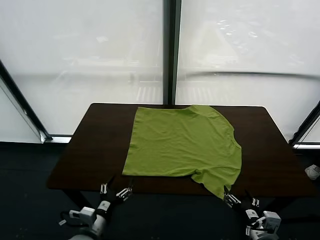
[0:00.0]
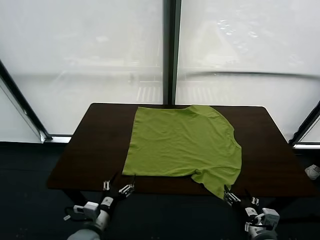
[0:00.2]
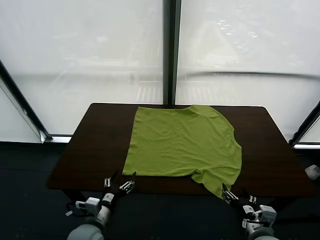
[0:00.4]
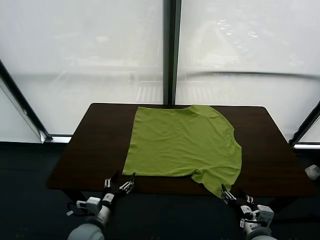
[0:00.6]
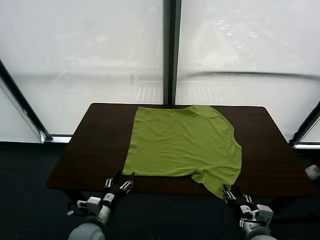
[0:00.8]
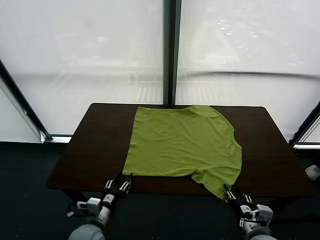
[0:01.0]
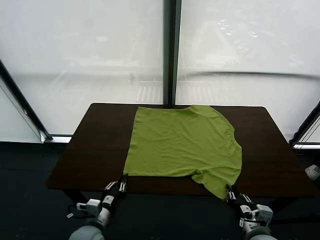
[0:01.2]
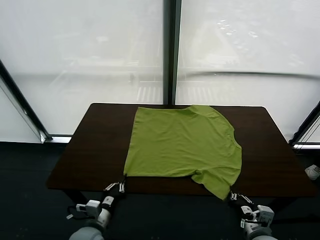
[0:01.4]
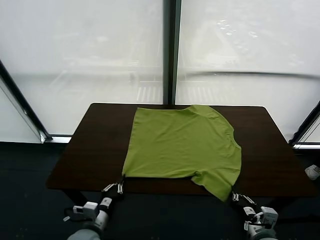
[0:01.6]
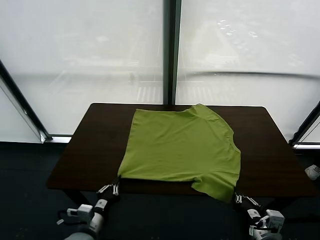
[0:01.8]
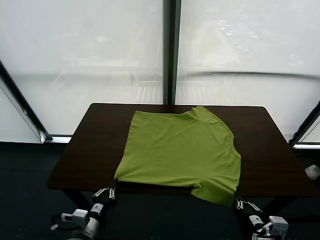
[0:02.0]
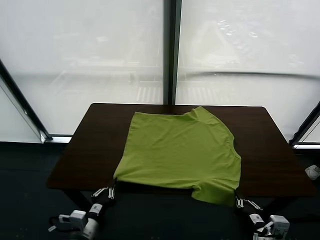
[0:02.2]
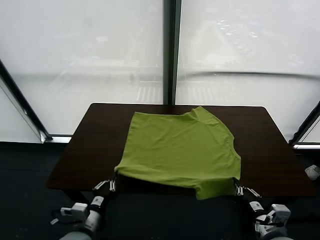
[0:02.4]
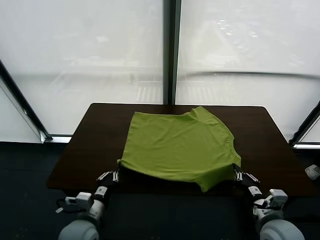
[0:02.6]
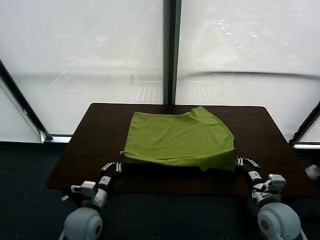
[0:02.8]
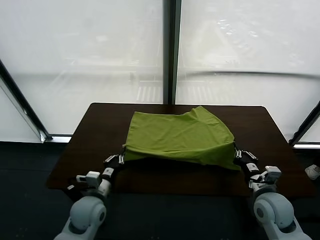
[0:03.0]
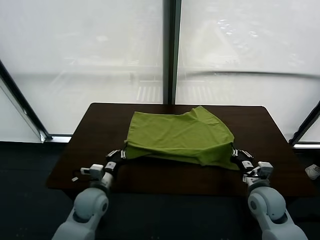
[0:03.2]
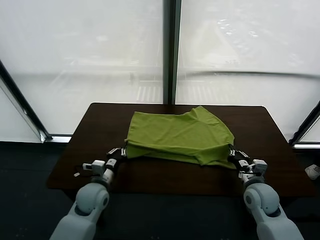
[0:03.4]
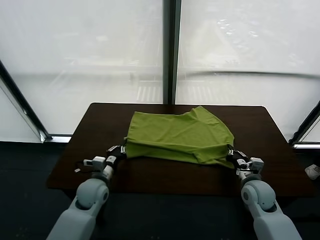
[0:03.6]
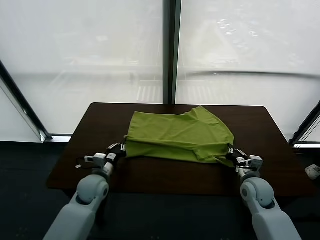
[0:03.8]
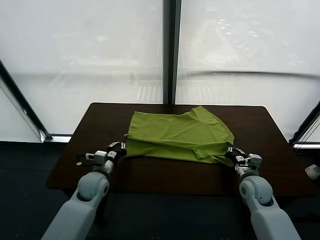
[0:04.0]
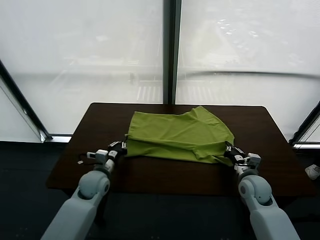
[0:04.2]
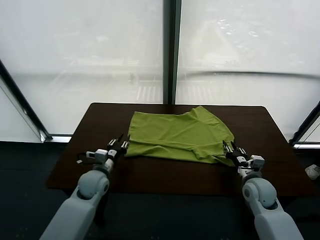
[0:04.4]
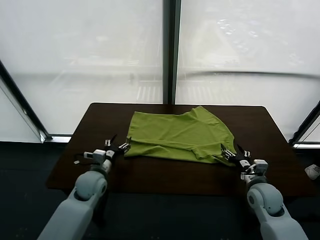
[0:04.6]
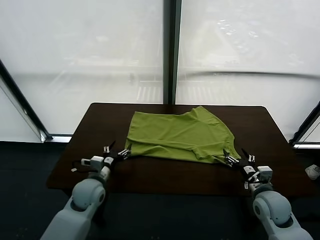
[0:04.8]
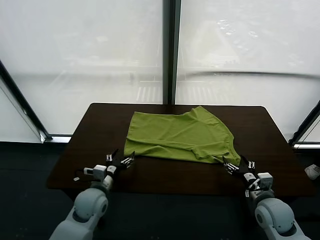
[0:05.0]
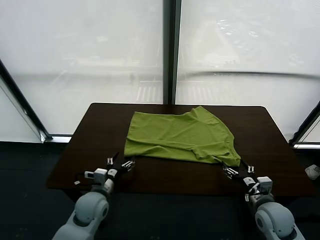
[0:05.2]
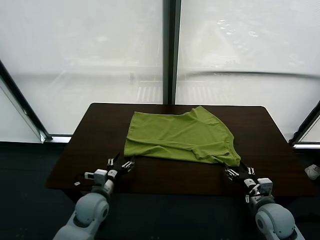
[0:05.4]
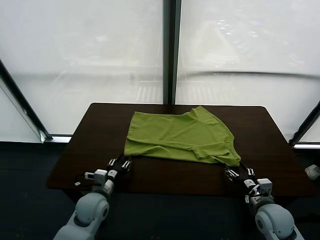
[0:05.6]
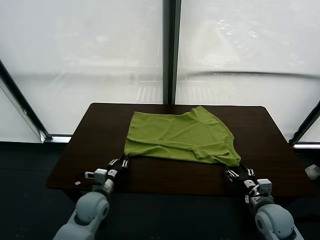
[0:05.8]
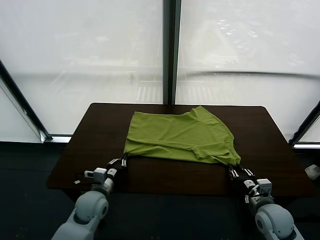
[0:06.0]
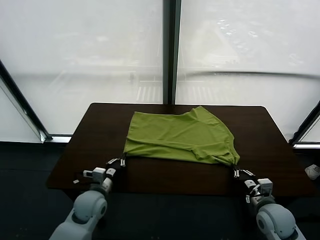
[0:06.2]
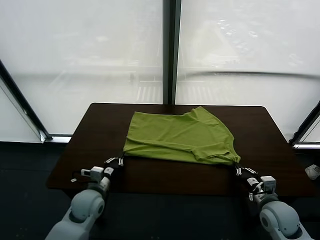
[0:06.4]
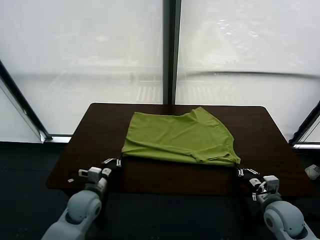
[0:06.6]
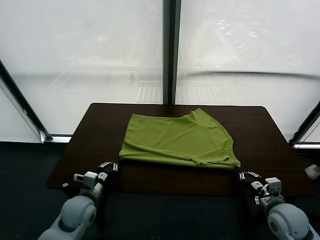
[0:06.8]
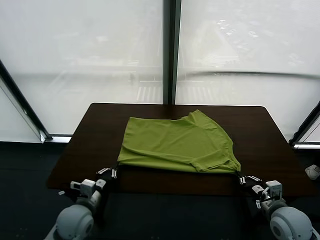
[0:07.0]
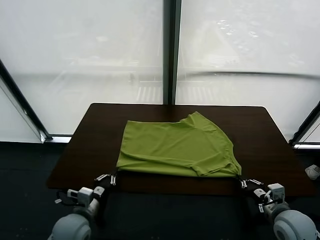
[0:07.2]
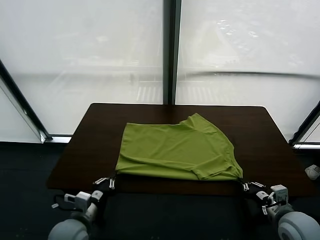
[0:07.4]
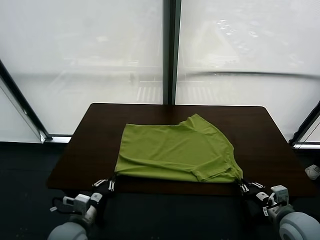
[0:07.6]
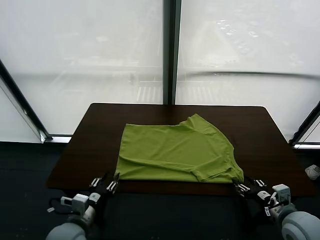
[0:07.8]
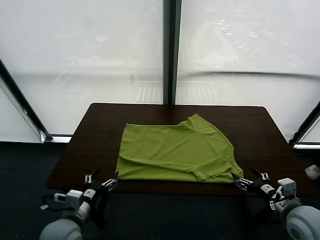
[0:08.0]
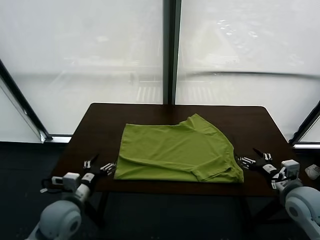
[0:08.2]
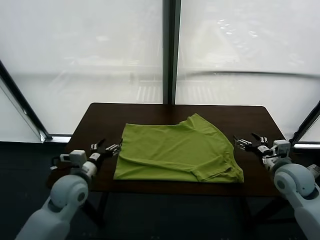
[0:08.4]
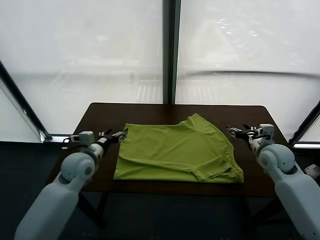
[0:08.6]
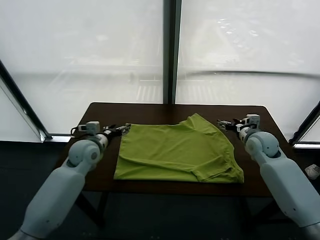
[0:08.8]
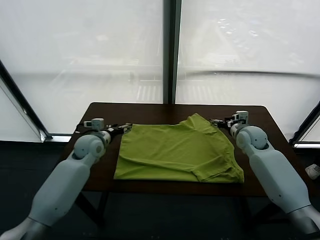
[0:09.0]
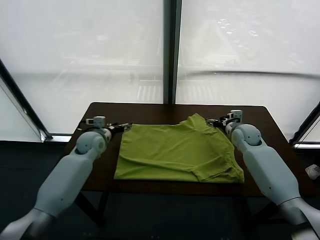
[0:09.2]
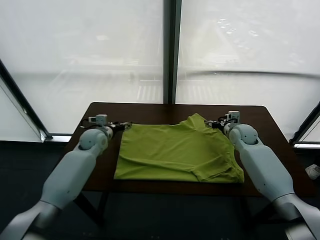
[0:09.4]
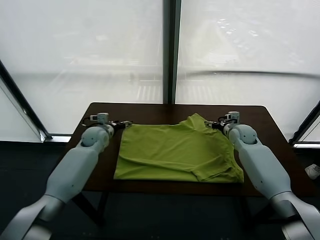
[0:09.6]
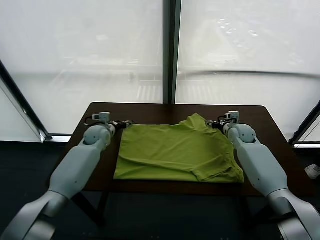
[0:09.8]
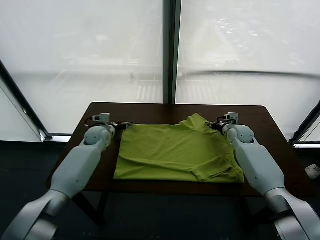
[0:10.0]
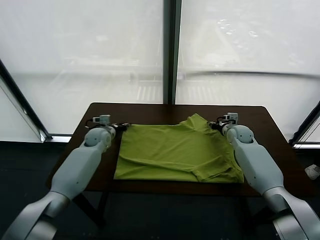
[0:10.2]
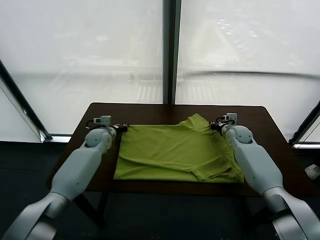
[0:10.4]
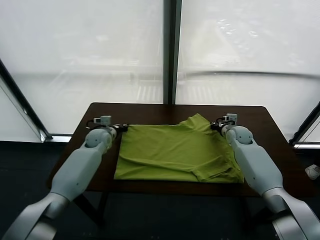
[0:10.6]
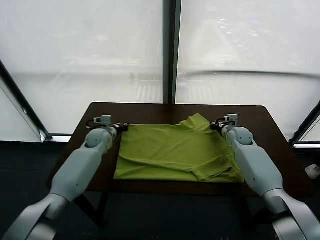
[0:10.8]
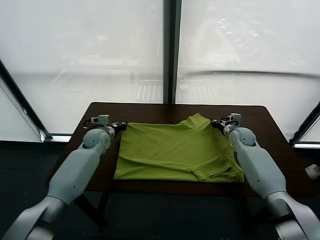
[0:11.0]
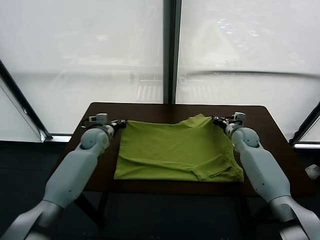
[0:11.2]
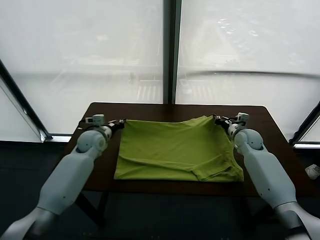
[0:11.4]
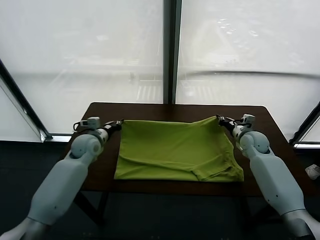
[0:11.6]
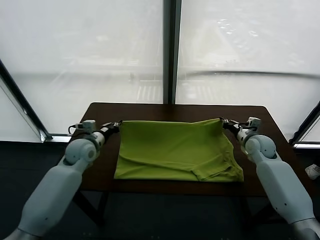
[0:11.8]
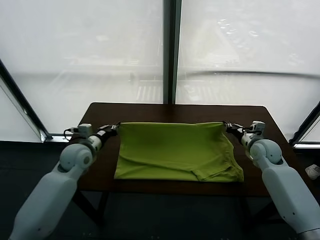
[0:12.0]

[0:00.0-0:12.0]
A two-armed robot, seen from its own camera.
Task of the whole recording: fold and organize the clothes.
Step, 0:00.0 to 0:01.6: use both grippers simultaneously to clamp the lower edge of the clothing fabric.
Step, 0:01.8 to 0:04.4: use both grippers to drag the lower edge of the fabric forward and fold it over the upper edge.
Step, 0:04.6 to 0:07.8: Drag the clothes downward with both gripper.
Step, 0:08.0 to 0:10.8: use both grippers simultaneously to clamp the upper edge of the clothing fabric.
0:01.6 to 0:03.0: The two grippers go some 10 cm forward.
0:03.0 to 0:04.4: The right gripper ends up approximately 5 cm from where it was, and opens. The left gripper shifts some 10 cm forward, and opens.
0:04.4 to 0:06.0: The grippers both shift backward by about 5 cm. The right gripper closes up; the left gripper closes up.
0:06.0 to 0:07.6: The left gripper travels backward by roughly 10 cm, while the right gripper shifts about 5 cm upward, and opens its fingers.
0:07.6 to 0:09.0: The two grippers go about 30 cm forward. The left gripper opens; the right gripper opens up.
0:09.0 to 0:10.4: The right gripper goes roughly 10 cm downward and forward, and closes up. The left gripper travels forward by roughly 5 cm, and closes.
0:10.4 to 0:12.0: The left gripper is displaced backward and upward by some 15 cm. The right gripper travels backward and to the right by roughly 10 cm.

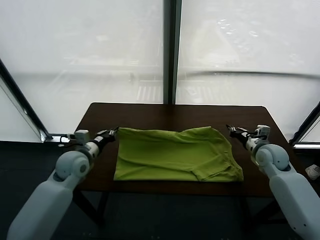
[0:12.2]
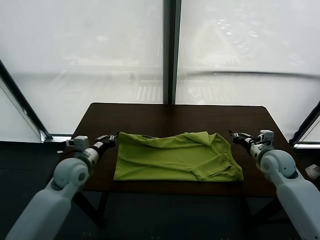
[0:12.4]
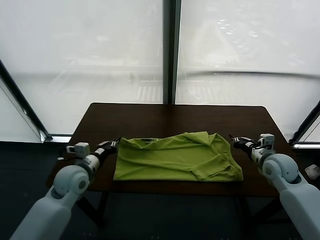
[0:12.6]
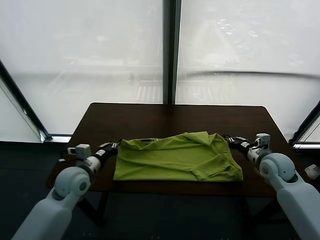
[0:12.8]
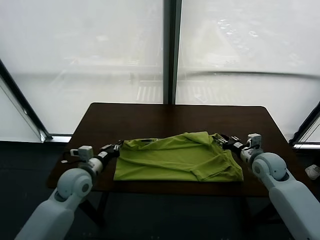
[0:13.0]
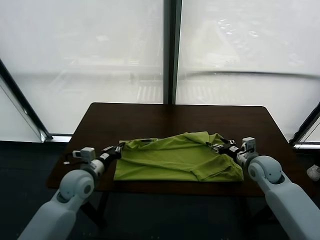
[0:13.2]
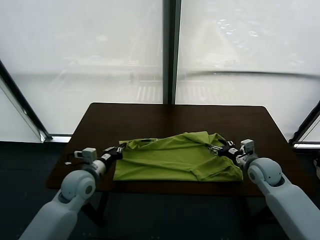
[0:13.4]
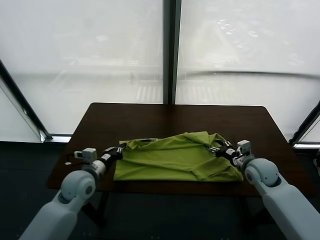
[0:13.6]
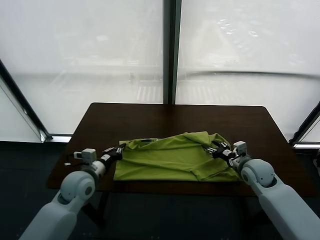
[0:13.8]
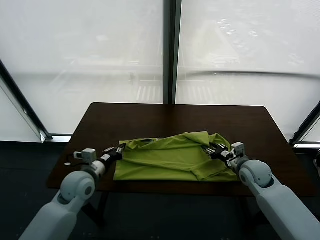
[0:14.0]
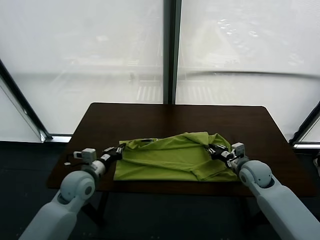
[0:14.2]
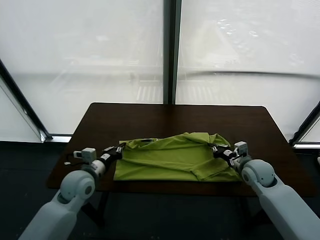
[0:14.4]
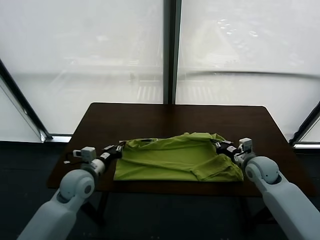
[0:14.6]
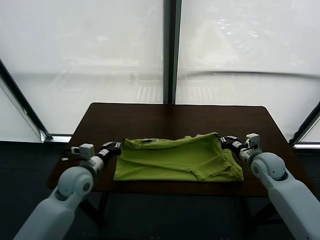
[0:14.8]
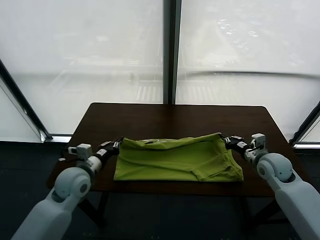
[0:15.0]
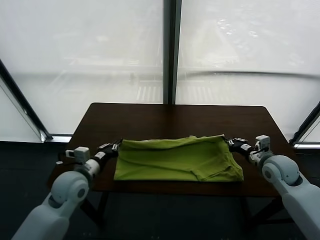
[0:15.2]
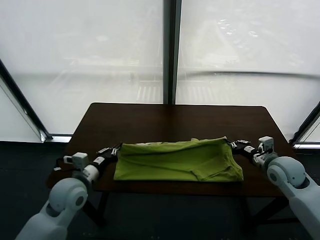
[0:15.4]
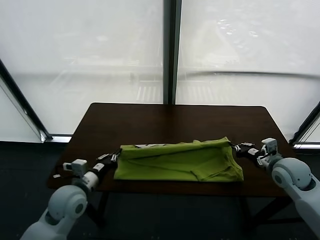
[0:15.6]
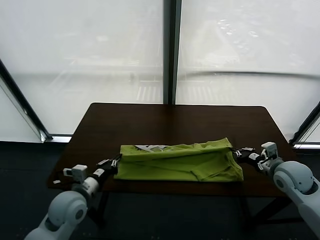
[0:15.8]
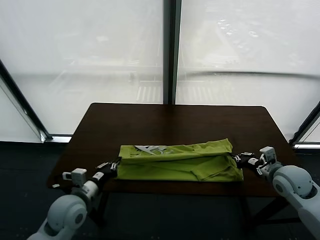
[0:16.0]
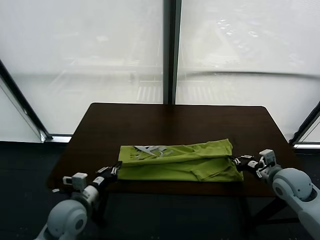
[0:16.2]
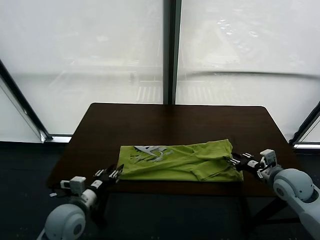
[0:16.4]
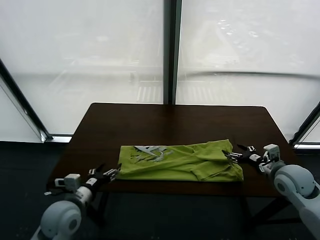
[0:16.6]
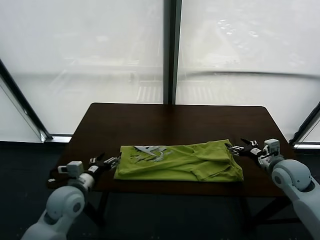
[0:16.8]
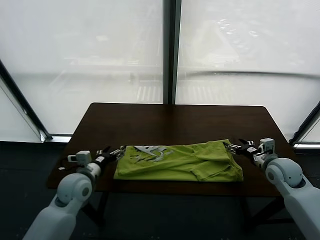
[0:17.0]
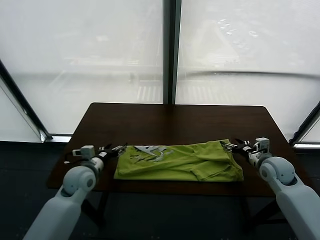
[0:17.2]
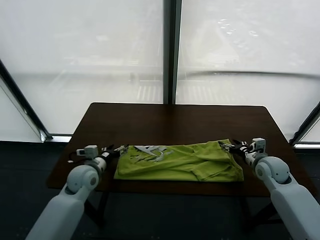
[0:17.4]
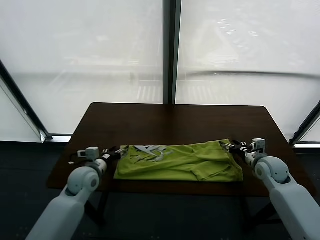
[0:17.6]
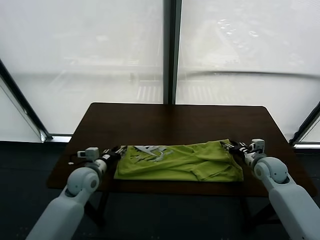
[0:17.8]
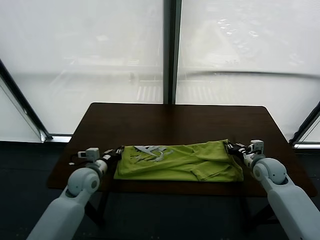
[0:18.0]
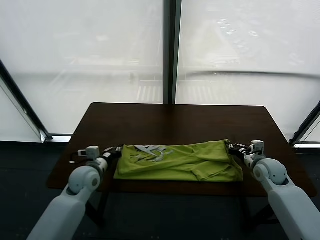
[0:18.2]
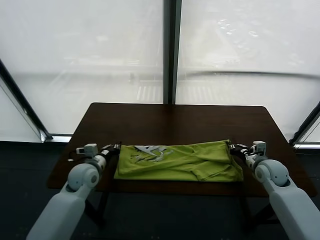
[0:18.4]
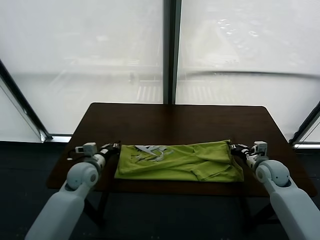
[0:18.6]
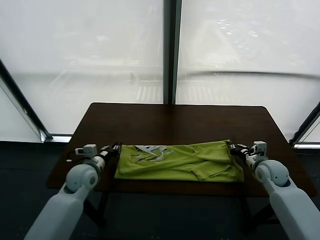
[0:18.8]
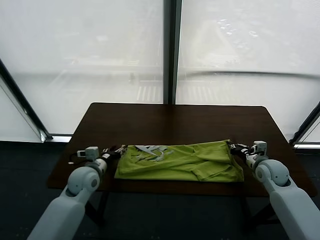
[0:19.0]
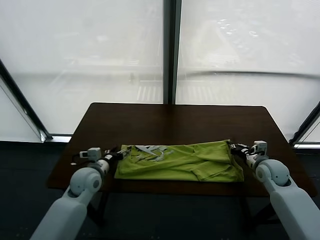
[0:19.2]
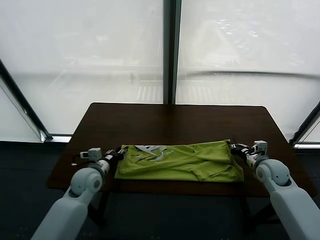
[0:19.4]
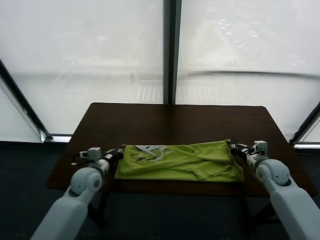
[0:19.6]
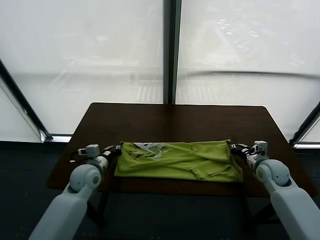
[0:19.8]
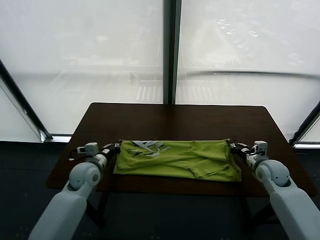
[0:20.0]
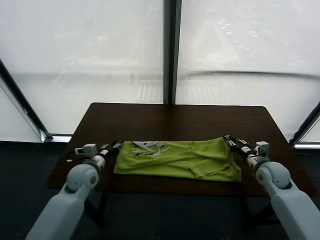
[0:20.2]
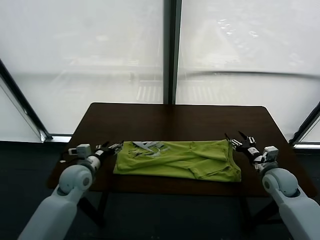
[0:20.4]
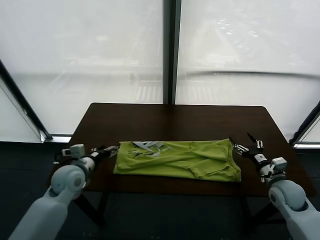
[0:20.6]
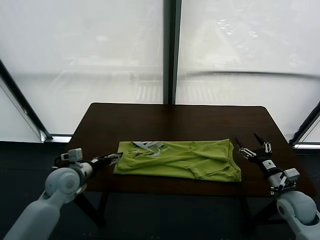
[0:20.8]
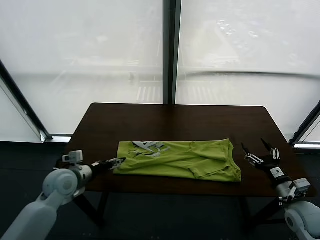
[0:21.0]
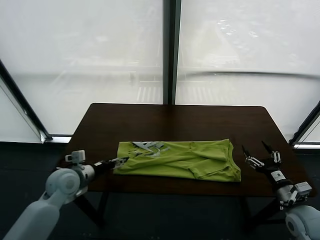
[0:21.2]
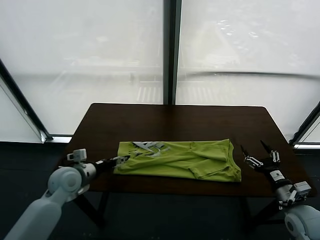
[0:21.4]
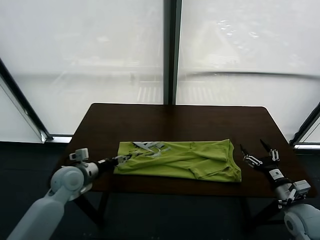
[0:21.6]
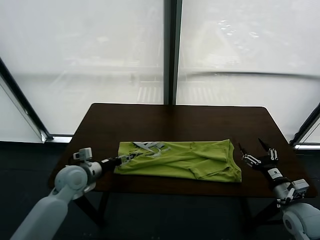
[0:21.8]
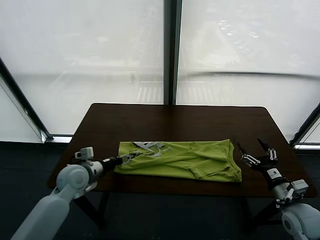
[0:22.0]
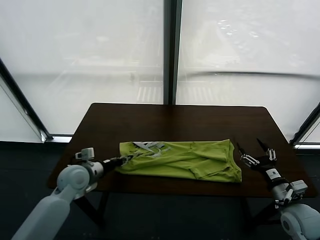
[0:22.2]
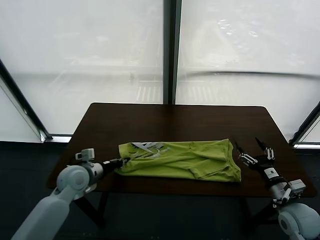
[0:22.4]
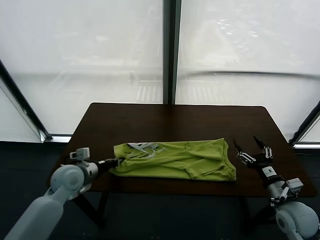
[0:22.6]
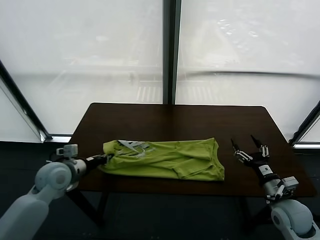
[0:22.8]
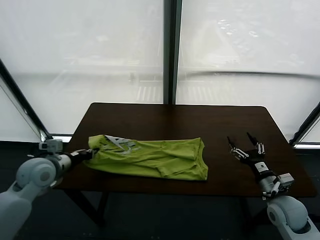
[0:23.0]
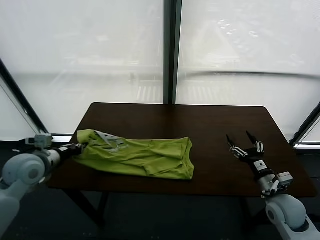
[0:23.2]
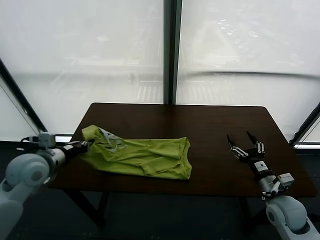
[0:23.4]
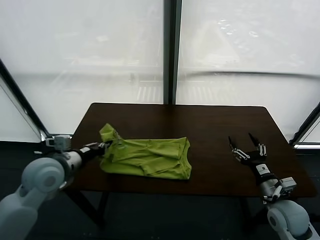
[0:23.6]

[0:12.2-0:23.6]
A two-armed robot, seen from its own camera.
Task of the whole recording: fold and organize the clothes.
Step, 0:12.2 to 0:16.4: use both grippers to drag the upper edge of the fabric backward and fold it over the lower edge.
Step, 0:16.6 to 0:22.2: use the left gripper to clamp the left edge of the fabric.
0:12.2 to 0:13.6: The right gripper ends up approximately 5 cm from where it was, and opens its fingers. The left gripper ends up about 5 cm from where it was.
0:13.6 to 0:15.0: The right gripper closes its fingers.
0:15.0 to 0:16.4: The two grippers go about 10 cm backward. The right gripper opens; the left gripper opens.
0:16.4 to 0:17.8: The right gripper heads forward and downward, covering some 10 cm, and closes up. The left gripper goes roughly 15 cm forward, and opens and closes again.
0:17.8 to 0:19.4: The right gripper closes. Meanwhile the left gripper closes, then reopens.
0:19.4 to 0:20.8: The left gripper travels to the left by about 5 cm, and opens up, while the right gripper is displaced backward by approximately 15 cm, and opens up.
0:20.8 to 0:22.2: The left gripper closes.
0:22.2 to 0:23.6: The left gripper goes roughly 10 cm upward.
